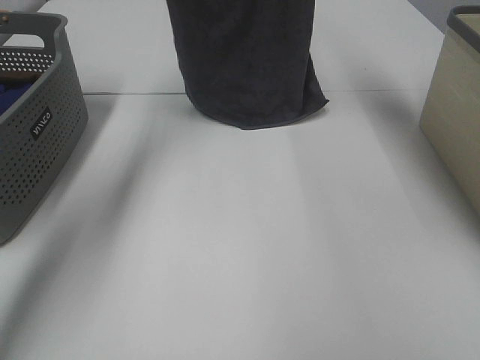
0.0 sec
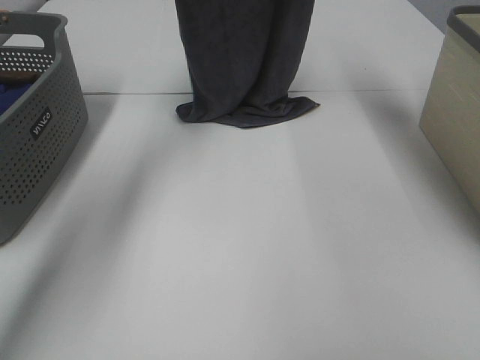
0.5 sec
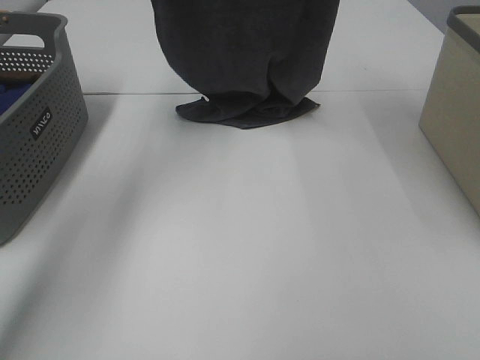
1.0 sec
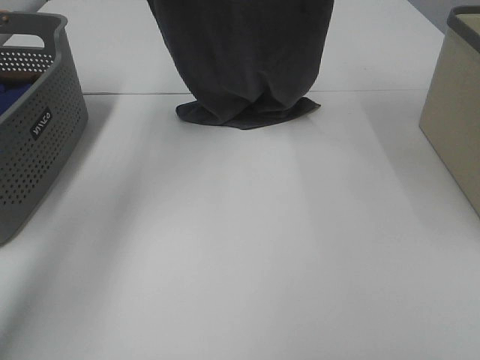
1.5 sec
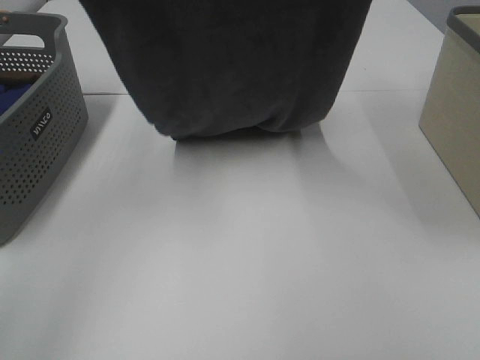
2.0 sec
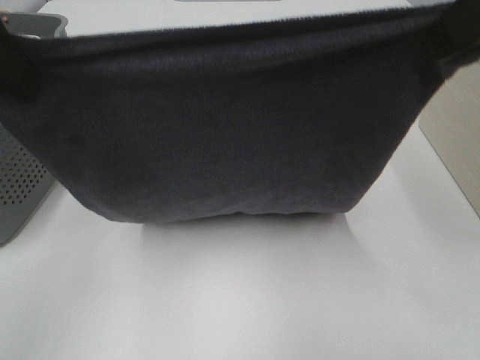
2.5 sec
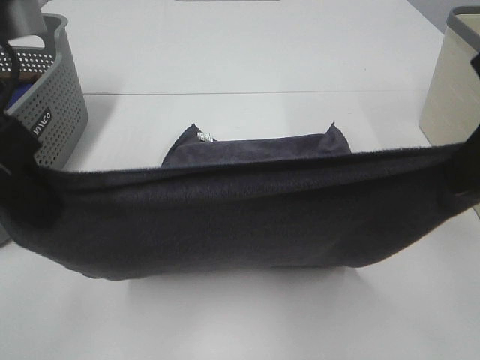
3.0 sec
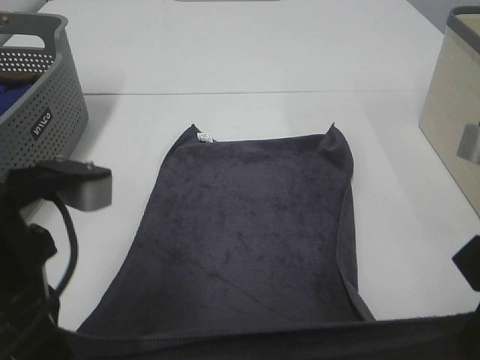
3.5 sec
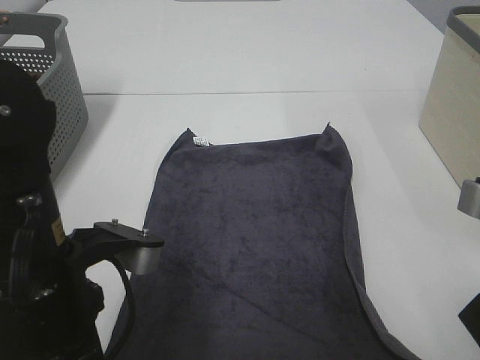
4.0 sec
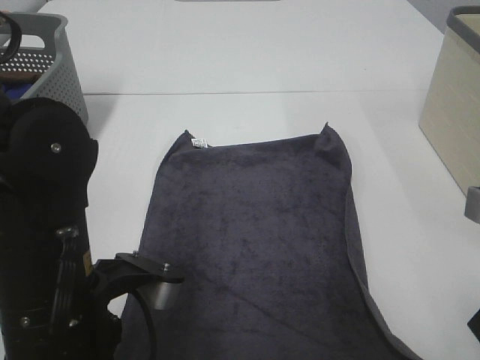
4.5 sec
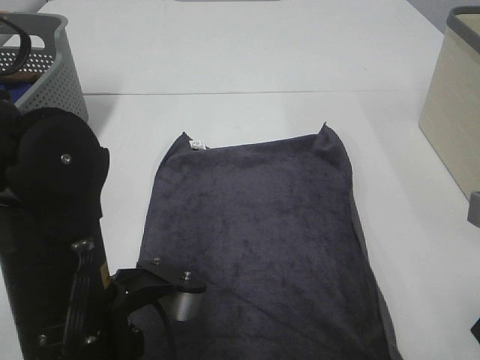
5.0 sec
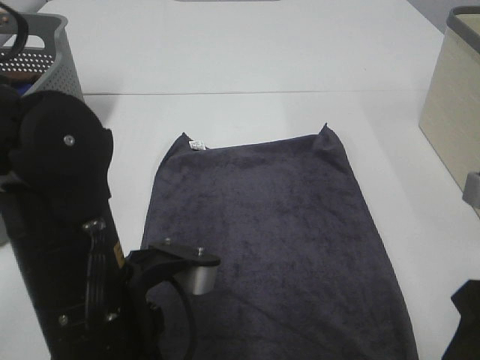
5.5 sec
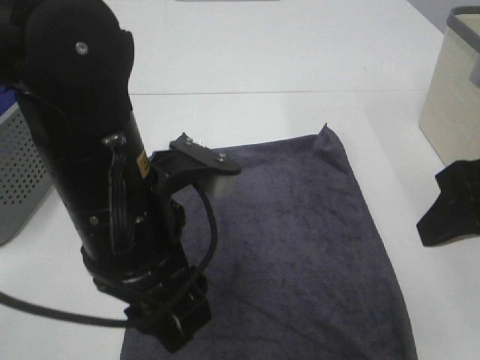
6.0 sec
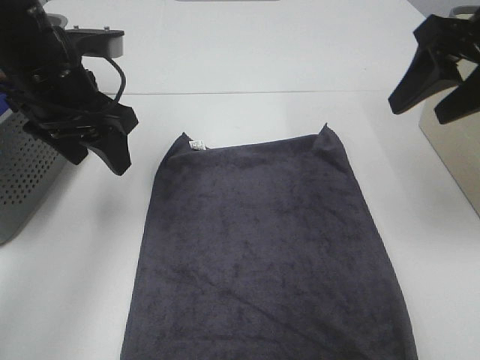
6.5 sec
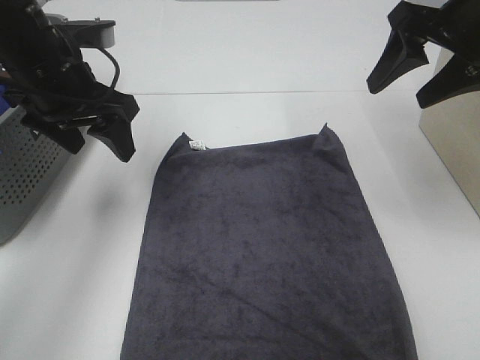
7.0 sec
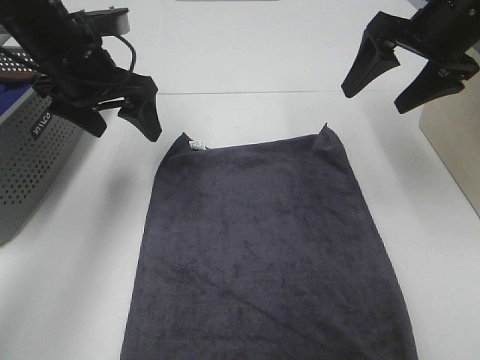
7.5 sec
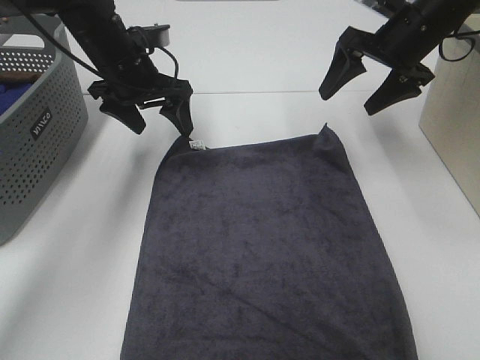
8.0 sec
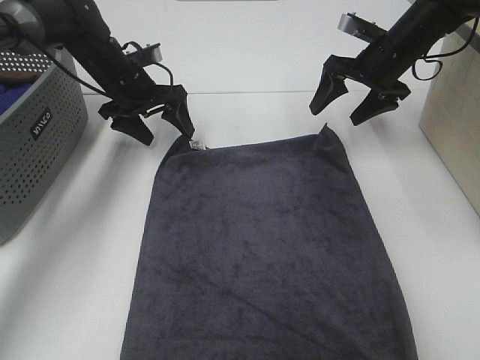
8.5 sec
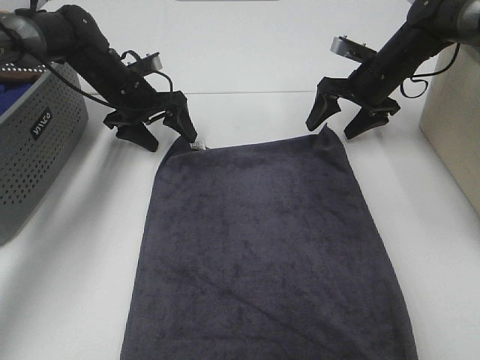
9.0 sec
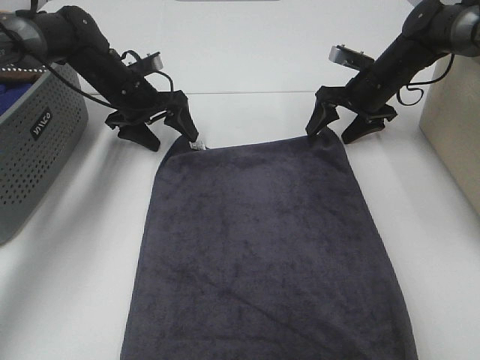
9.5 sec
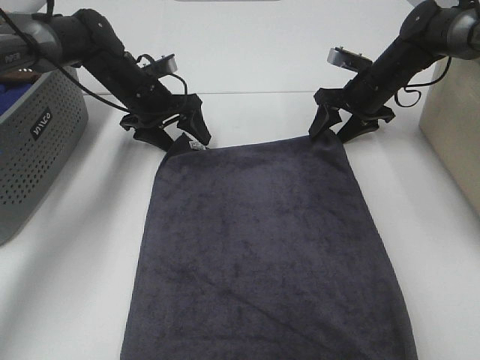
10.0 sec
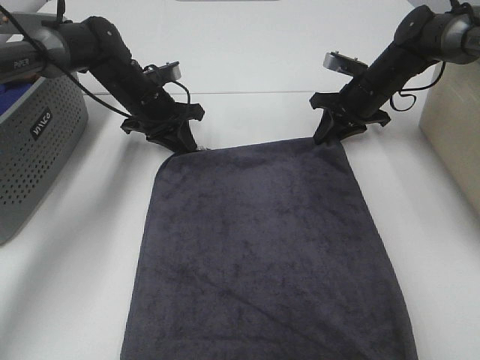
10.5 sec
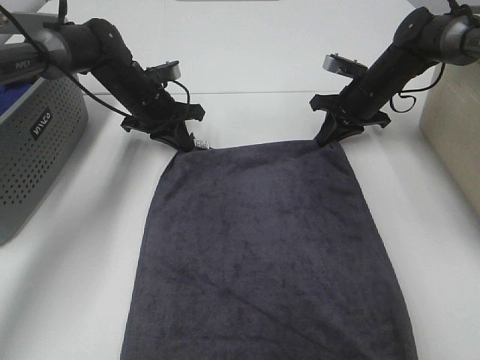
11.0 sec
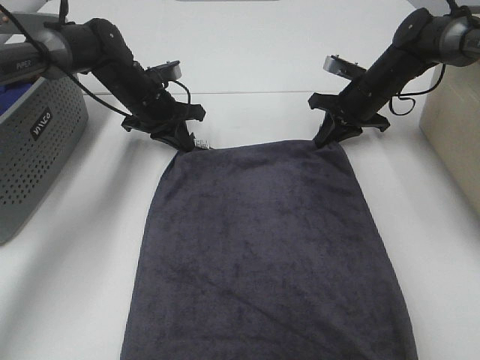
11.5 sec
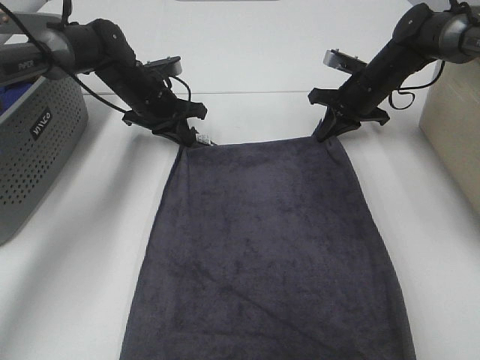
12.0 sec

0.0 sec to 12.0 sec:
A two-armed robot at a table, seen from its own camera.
Task of the whole recording: Remove the towel and place it.
Step, 1.5 sec to 9.5 sec: Left hand:adjust the gray towel.
Step, 1.5 sec to 11.0 sec: Right hand:adjust the gray towel.
0.0 sec to 2.0 sec: The grippers both shift backward by roughly 20 cm.
2.0 sec to 4.0 sec: The grippers both shift downward and backward by some 30 cm.
4.0 sec to 6.0 sec: The left gripper heads to the right, covering roughly 5 cm, and opens up. The right gripper heads forward, covering approximately 5 cm, and opens up.
6.0 sec to 8.0 sec: Both grippers travel together forward, some 30 cm.
8.0 sec to 10.0 sec: The left gripper moves downward, approximately 10 cm. The right gripper goes roughly 15 cm downward and forward.
10.0 sec to 12.0 sec: The right gripper closes up. Meanwhile the left gripper closes up.

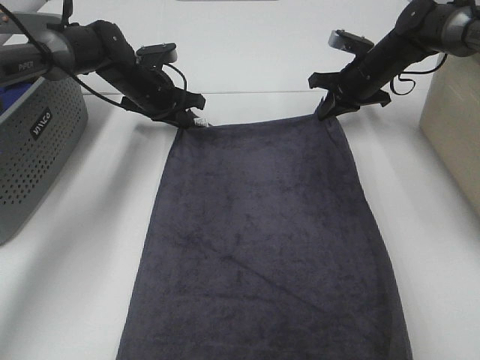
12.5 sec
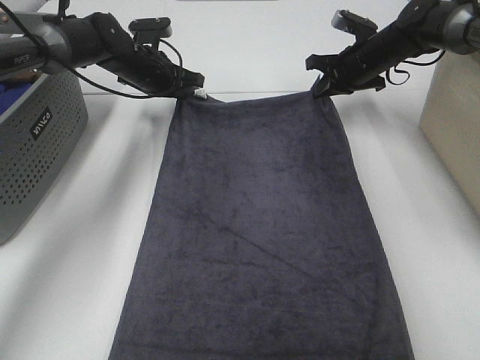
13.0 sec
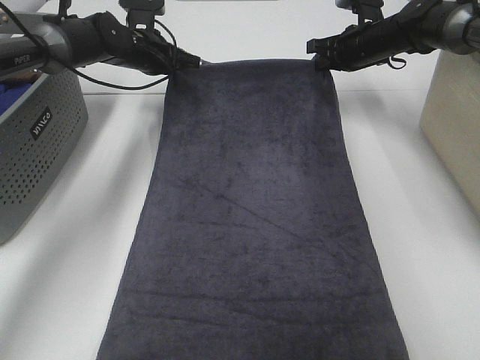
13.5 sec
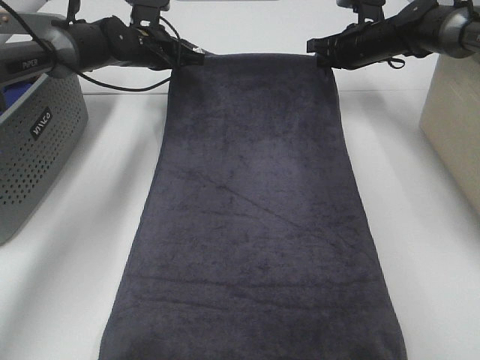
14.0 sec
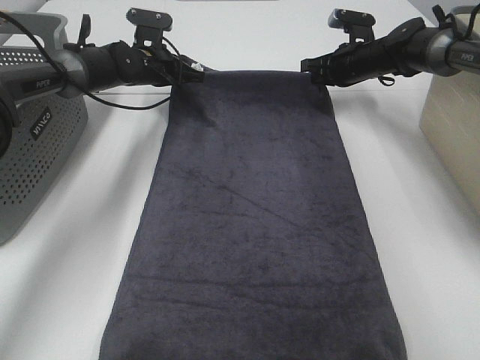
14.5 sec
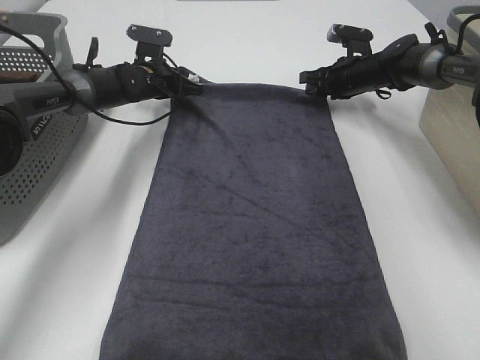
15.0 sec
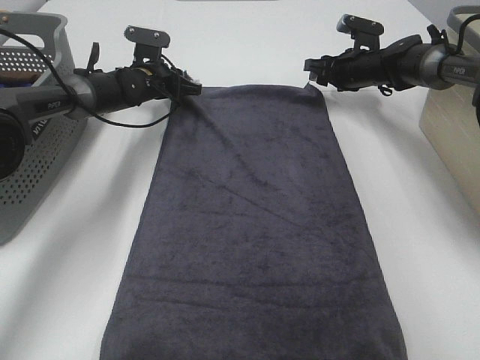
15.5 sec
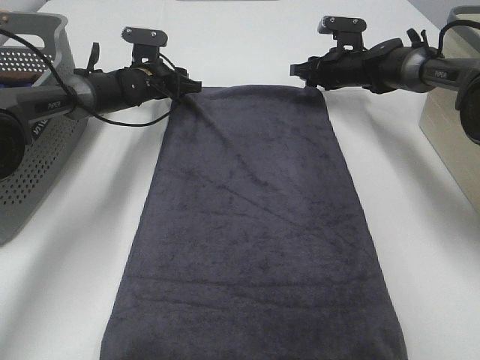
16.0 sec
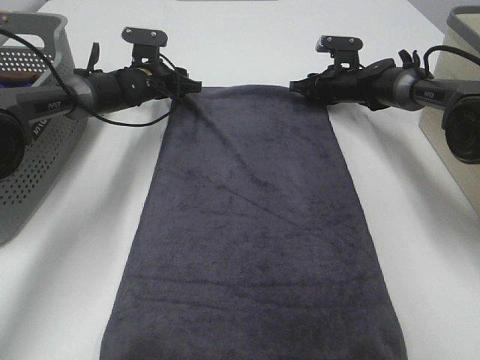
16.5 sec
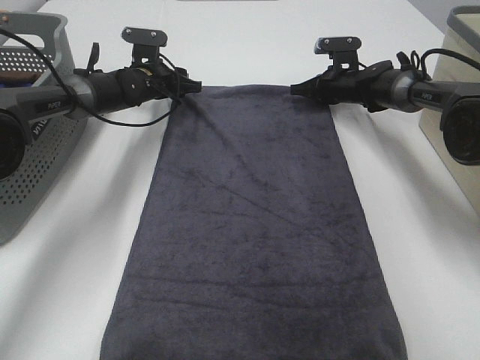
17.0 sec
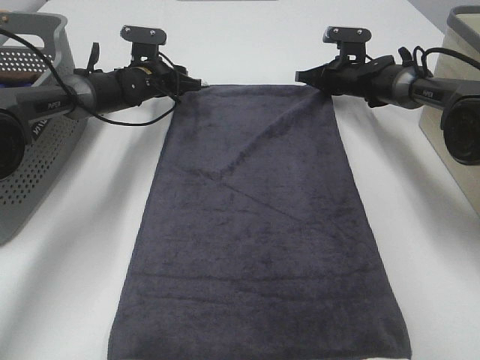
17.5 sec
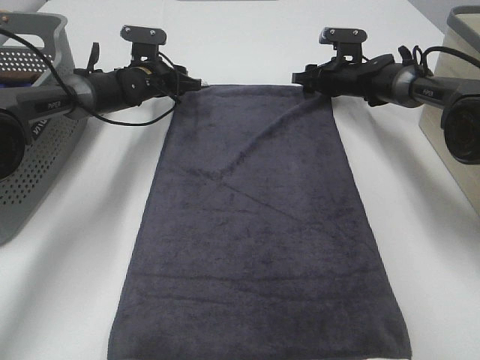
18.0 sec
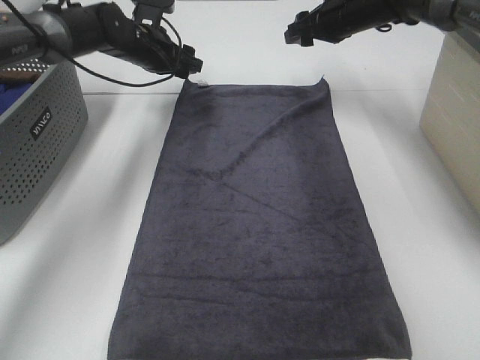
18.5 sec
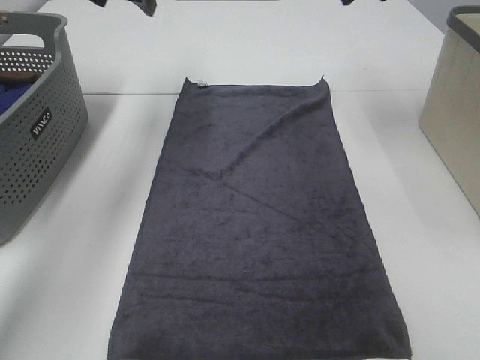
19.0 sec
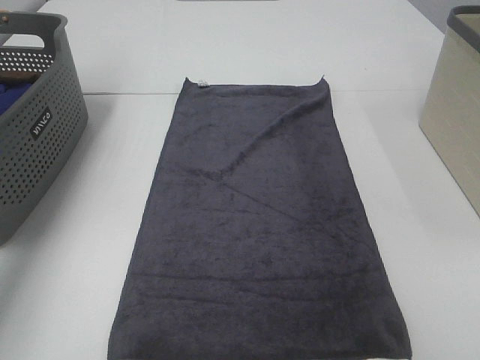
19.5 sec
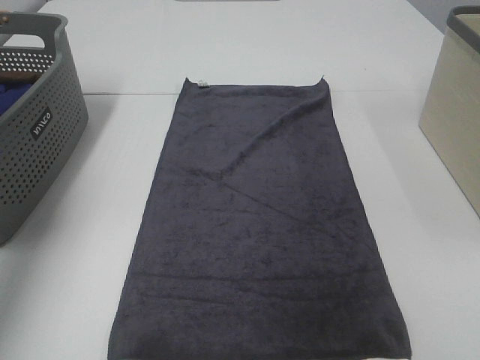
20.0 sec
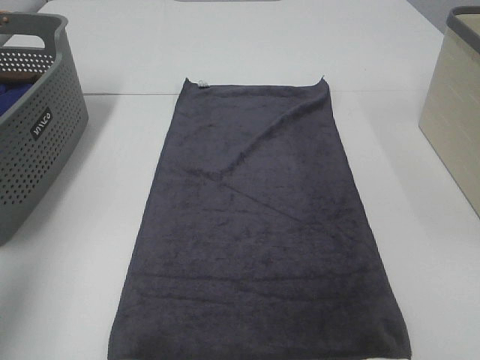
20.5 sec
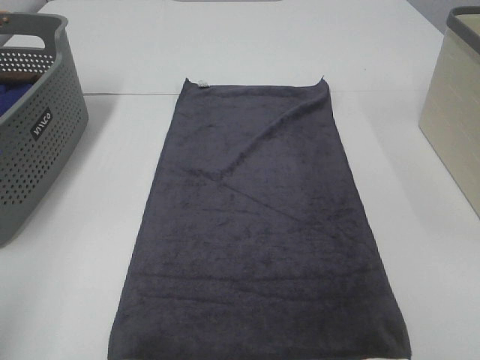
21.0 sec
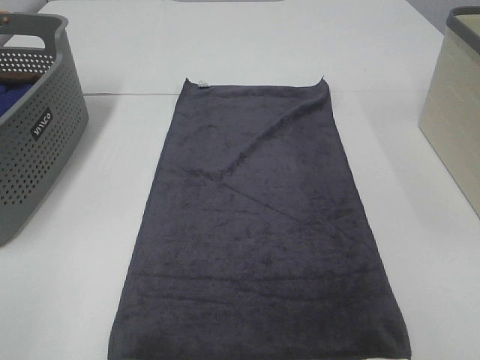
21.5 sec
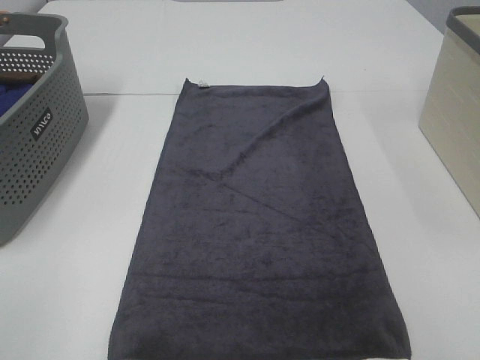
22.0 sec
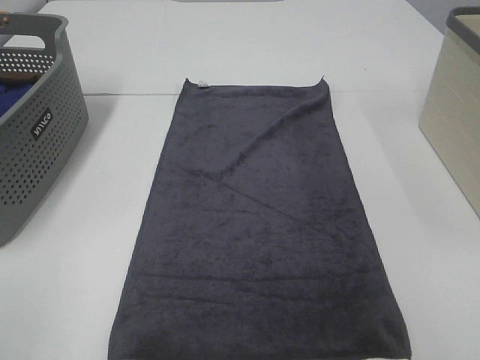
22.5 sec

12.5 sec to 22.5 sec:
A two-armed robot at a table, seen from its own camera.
Task of the whole recording: Remove the towel and place it.
14.5 sec to 16.5 sec: The left gripper opens; the right gripper moves downward, some 5 cm, and opens.
16.5 sec to 18.5 sec: The left gripper heads upward, covering some 10 cm. The right gripper moves upward, approximately 15 cm, and closes and opens again.
18.5 sec to 20.5 sec: The left gripper is displaced backward, upward and to the left by approximately 50 cm, while the right gripper heads backward, covering some 50 cm.
20.5 sec to 22.5 sec: The left gripper goes approximately 20 cm backward and downward.

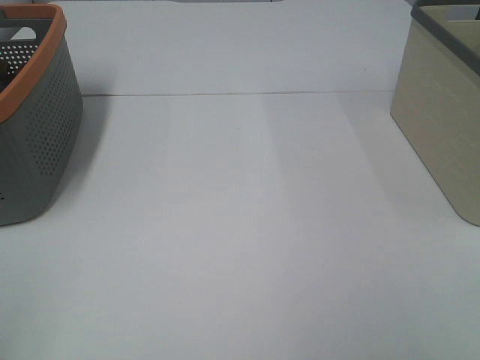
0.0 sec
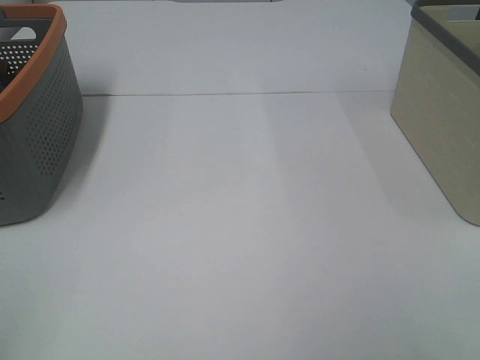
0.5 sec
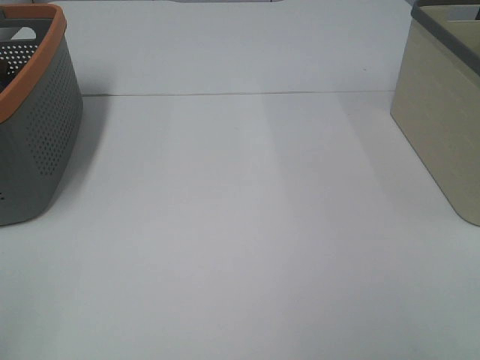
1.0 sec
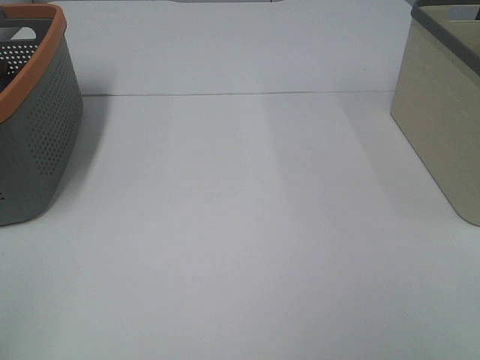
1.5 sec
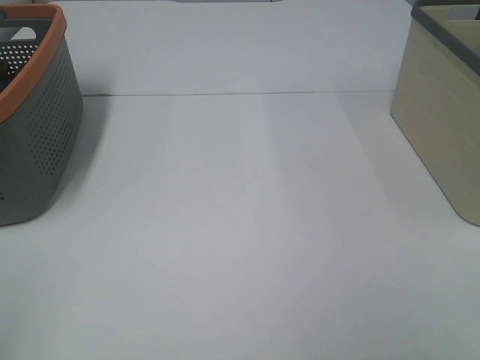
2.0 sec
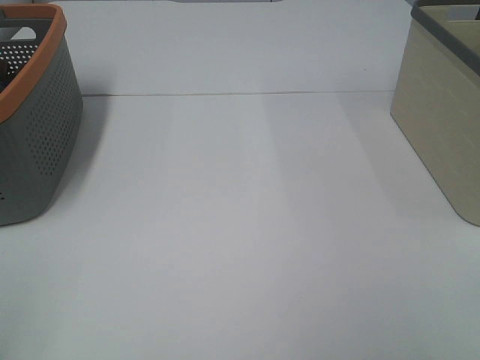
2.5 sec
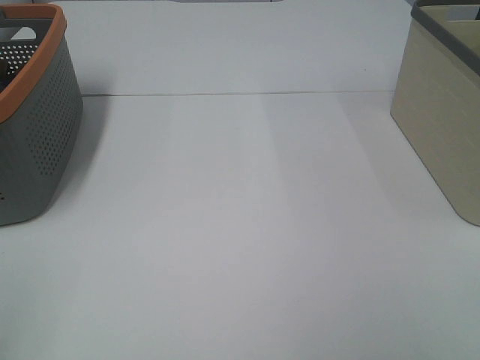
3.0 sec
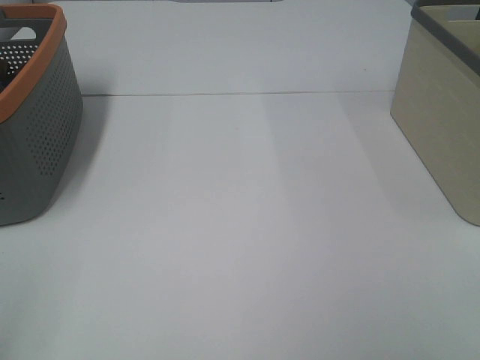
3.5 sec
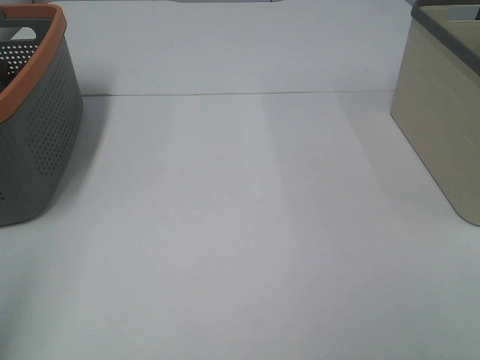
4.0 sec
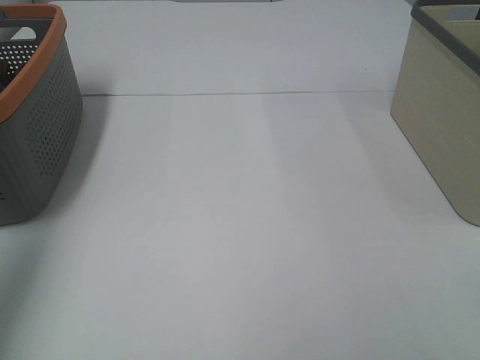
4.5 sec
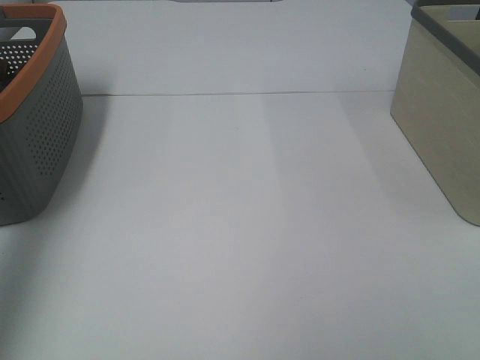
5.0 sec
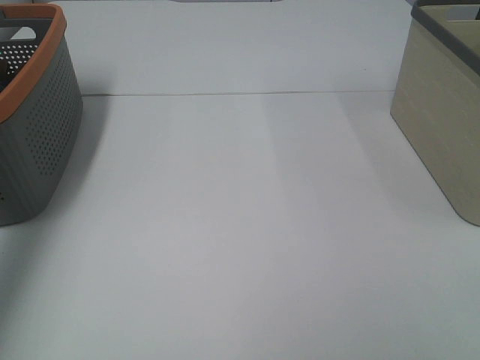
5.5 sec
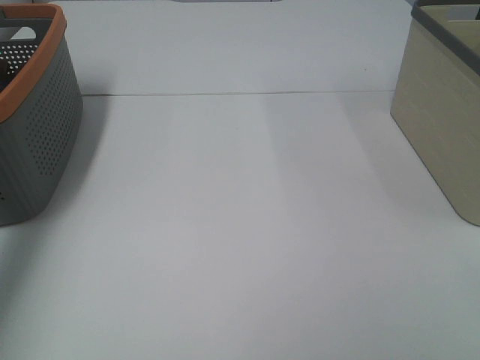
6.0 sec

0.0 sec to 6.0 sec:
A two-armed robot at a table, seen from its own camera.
Task of the whole recording: Remove the towel and place it.
0.0 sec to 2.0 sec: Both grippers stay put.
4.0 sec to 6.0 sec: The left gripper shifts some 35 cm forward.
